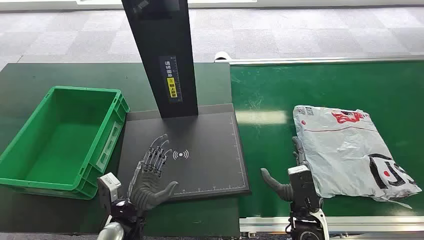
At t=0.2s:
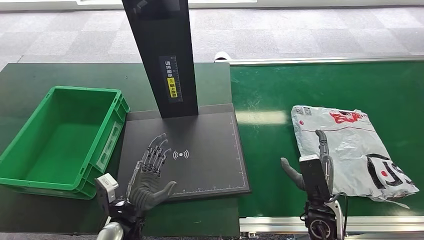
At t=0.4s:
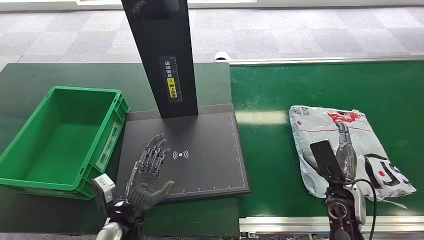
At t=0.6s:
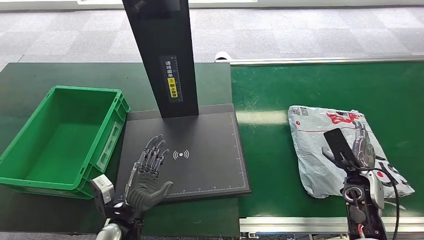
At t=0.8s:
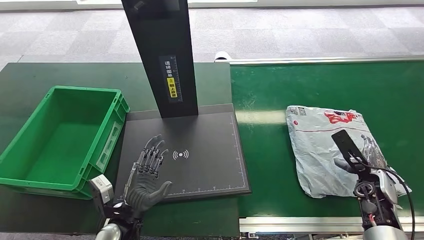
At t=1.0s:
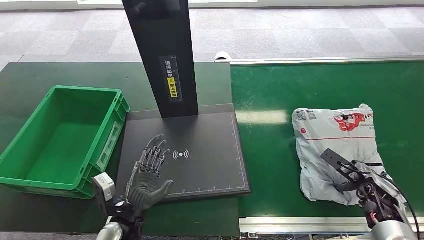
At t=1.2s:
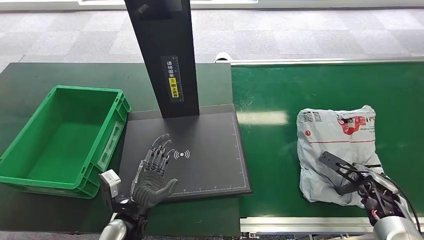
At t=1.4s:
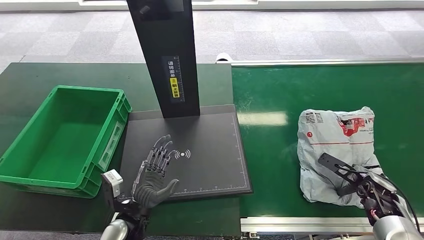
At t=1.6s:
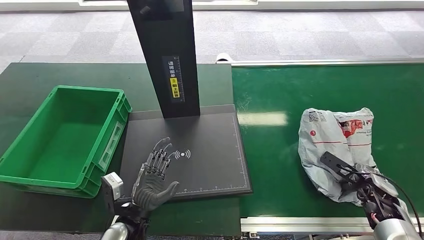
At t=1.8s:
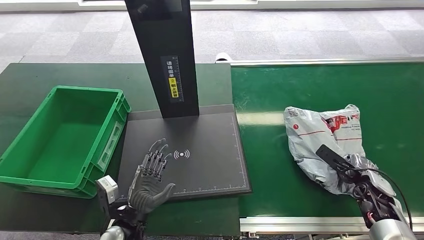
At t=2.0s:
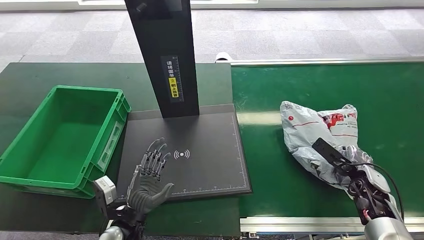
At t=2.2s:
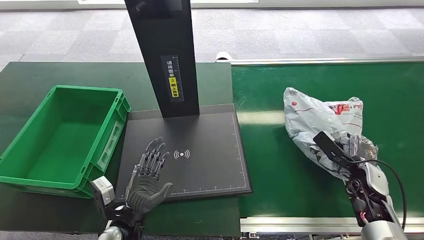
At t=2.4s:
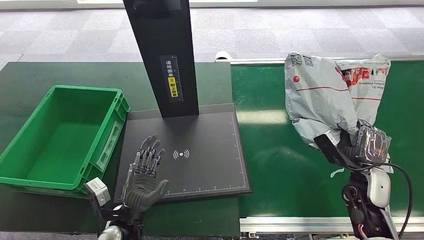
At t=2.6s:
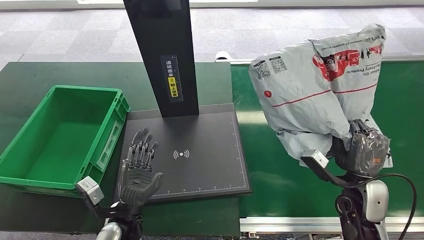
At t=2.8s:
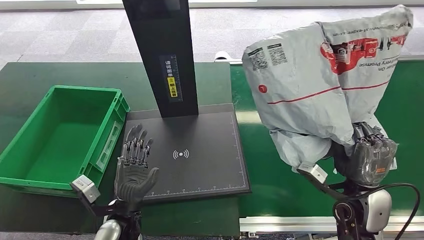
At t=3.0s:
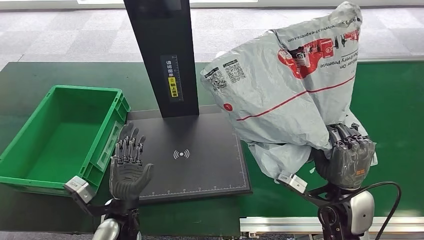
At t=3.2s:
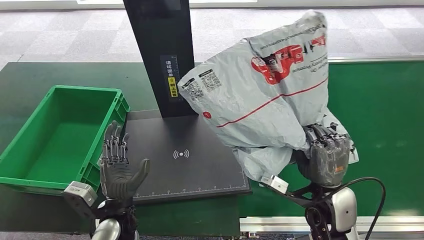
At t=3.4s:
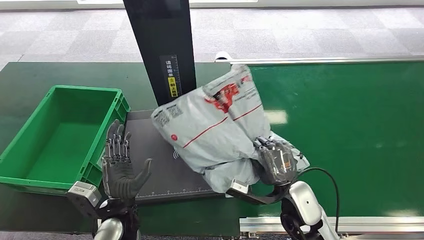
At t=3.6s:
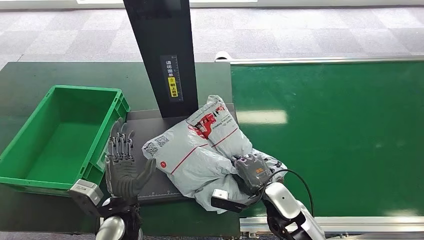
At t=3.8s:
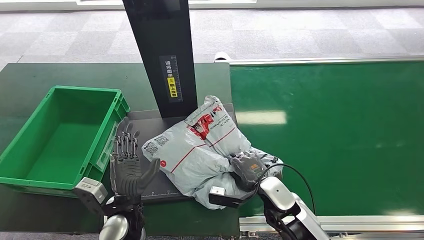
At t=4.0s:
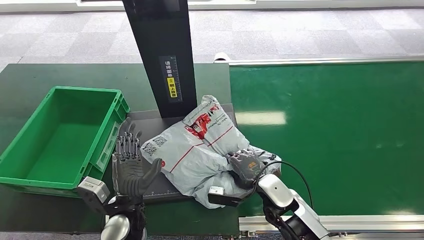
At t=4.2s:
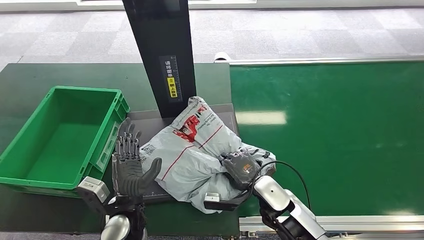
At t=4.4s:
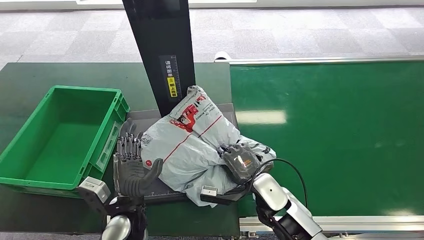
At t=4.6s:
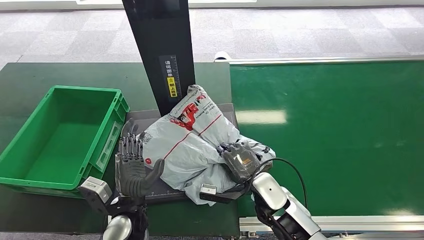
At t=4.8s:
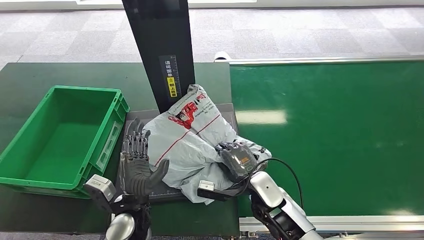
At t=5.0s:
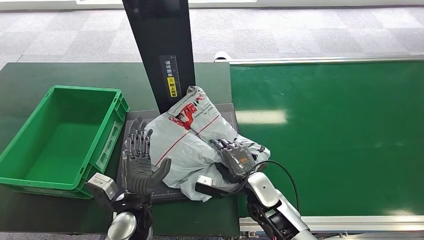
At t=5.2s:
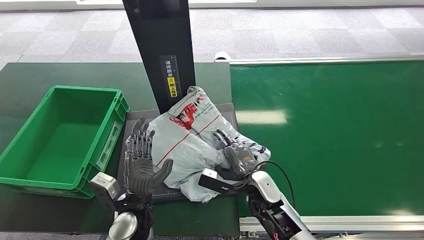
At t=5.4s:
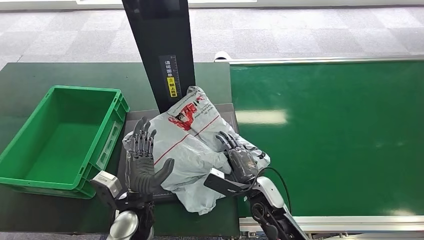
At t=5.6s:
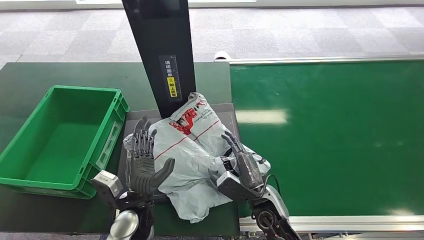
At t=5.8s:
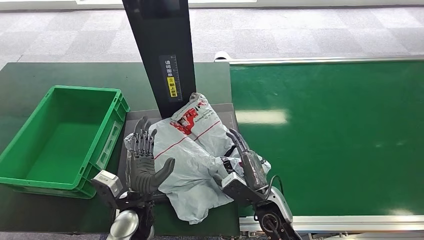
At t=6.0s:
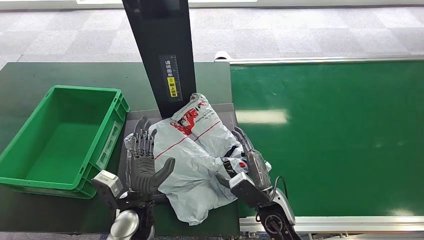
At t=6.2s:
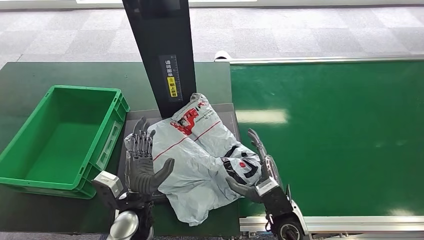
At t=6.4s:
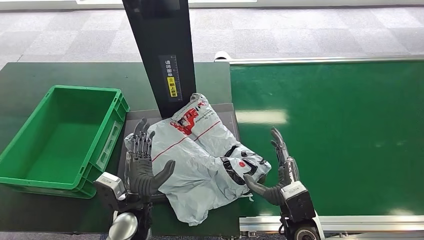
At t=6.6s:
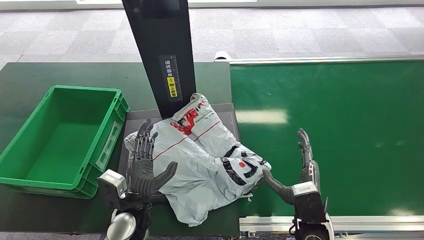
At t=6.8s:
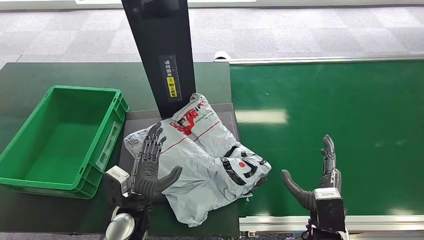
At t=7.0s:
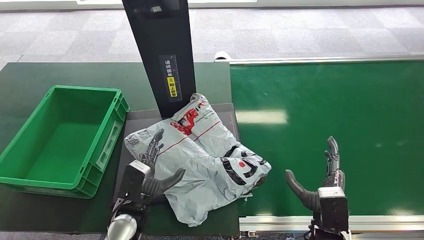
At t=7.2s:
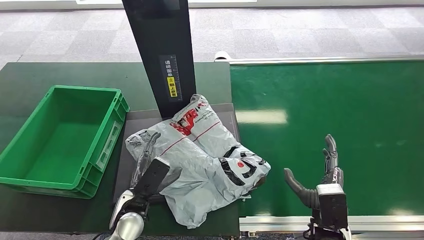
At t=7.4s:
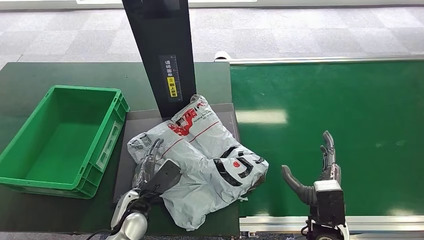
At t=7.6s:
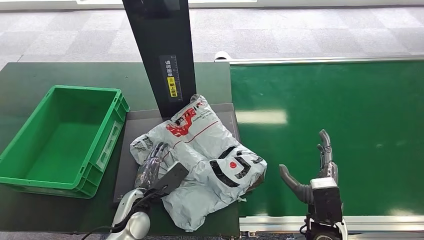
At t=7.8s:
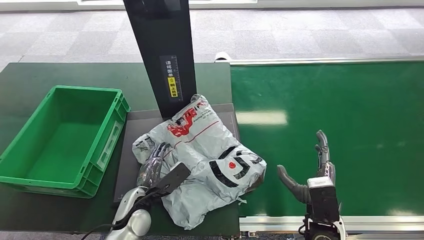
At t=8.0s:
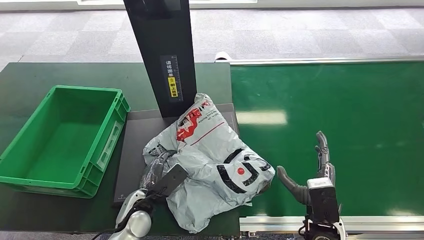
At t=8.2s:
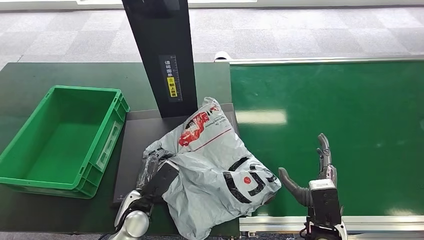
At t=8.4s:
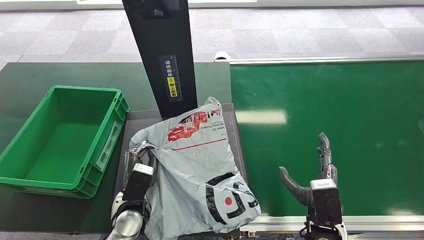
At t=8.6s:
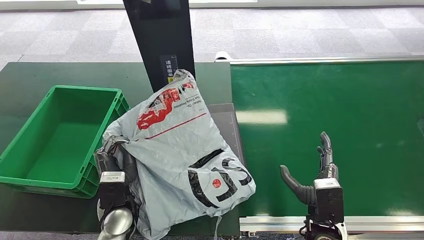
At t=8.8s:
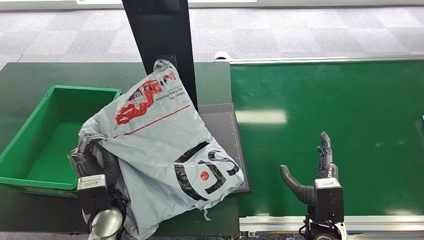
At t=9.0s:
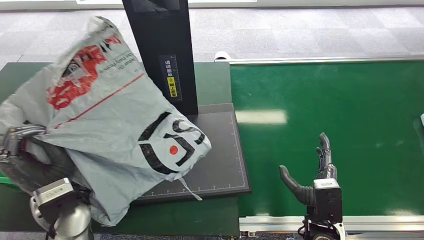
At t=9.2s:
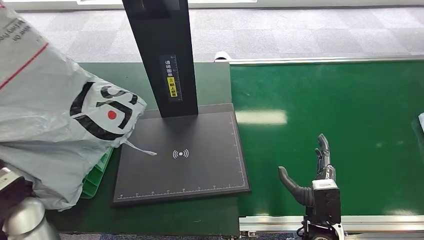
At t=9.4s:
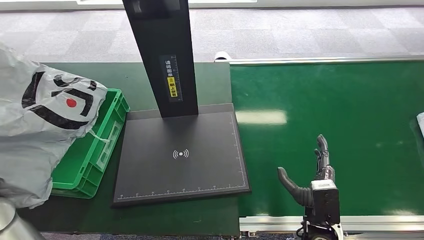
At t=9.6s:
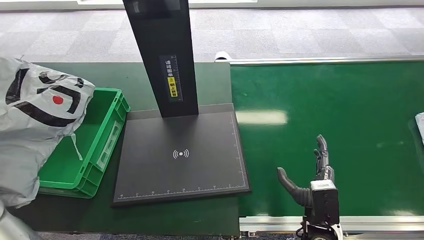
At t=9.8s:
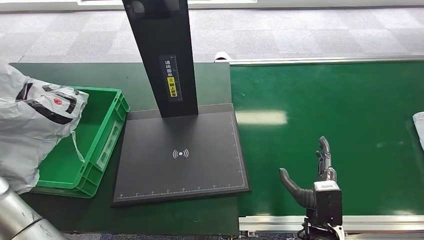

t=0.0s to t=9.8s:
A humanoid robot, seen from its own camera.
Step, t=0.0s to t=2.6s: Pick up the package from the conveyor belt.
Step, t=2.8s to t=6.0s: Place the package onto the inbound machine.
Step, t=6.2s to t=9.4s: Pick up the package from the inbound machine.
t=5.6s to t=7.0s: The right hand shifts some 10 cm to the right and backward.

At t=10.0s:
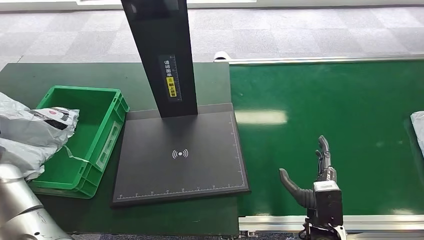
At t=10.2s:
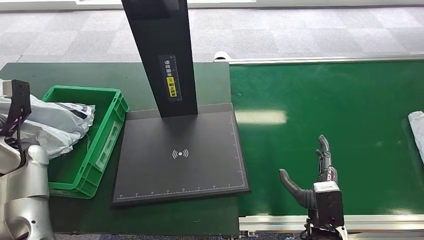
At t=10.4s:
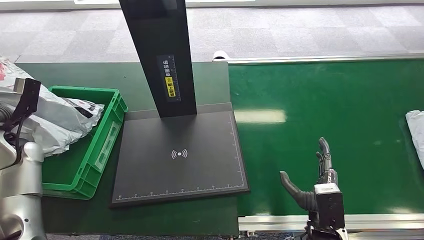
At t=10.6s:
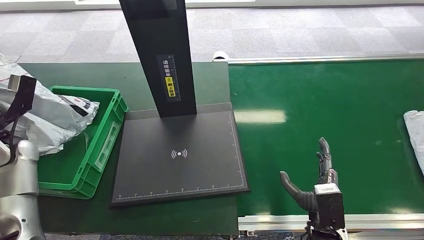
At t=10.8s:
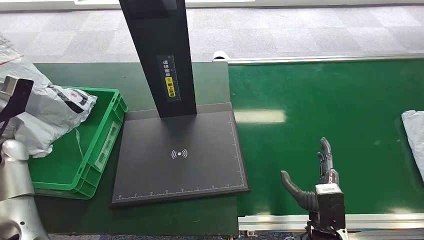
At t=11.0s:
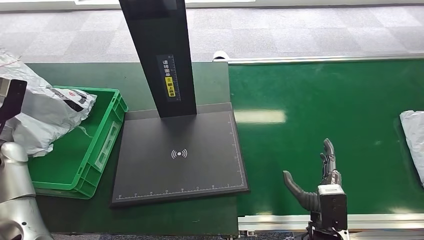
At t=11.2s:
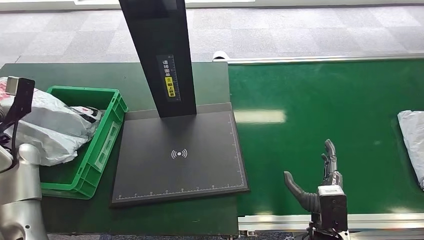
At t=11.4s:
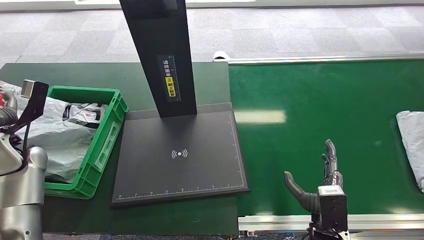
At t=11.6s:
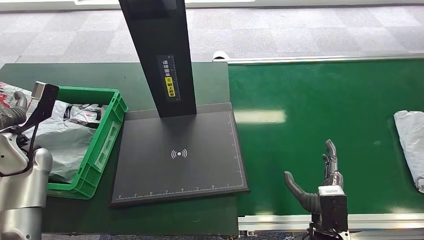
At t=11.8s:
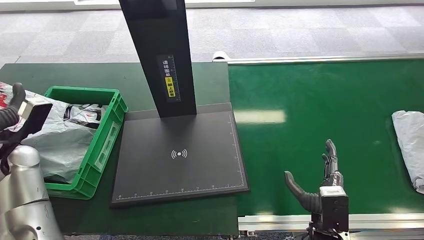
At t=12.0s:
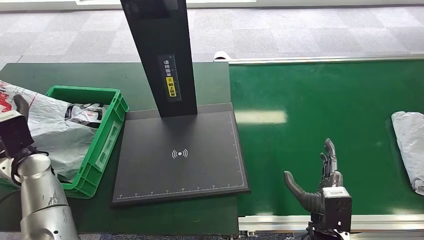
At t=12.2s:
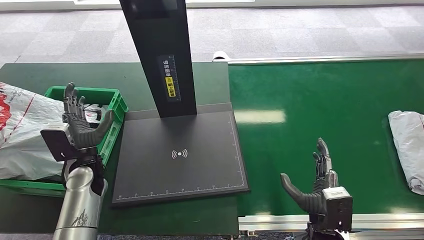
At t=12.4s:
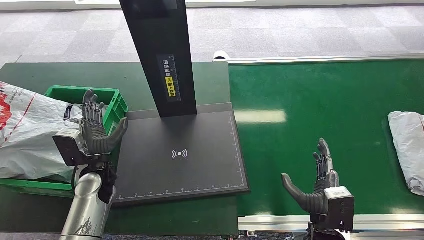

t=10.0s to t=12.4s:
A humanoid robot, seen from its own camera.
Step, t=10.0s to t=12.4s: Place the package into the parcel locker.
t=11.2s to t=12.4s: The left hand goes approximately 25 cm to the right and downward.
